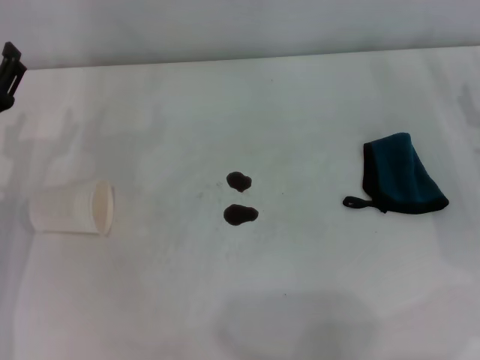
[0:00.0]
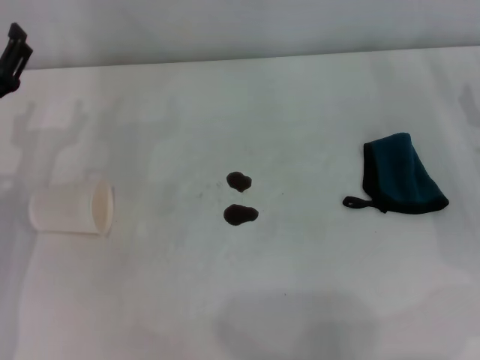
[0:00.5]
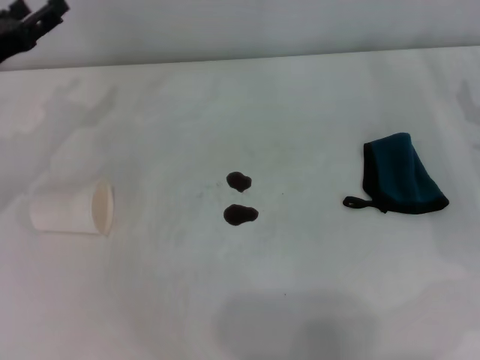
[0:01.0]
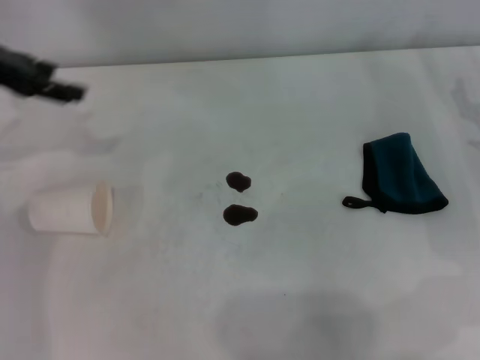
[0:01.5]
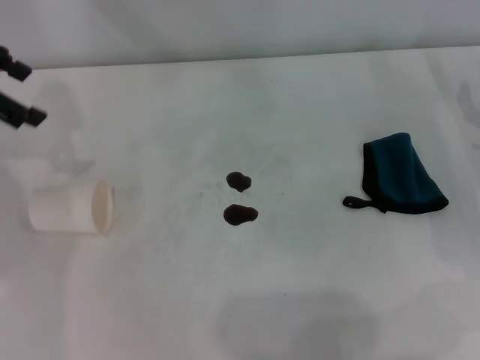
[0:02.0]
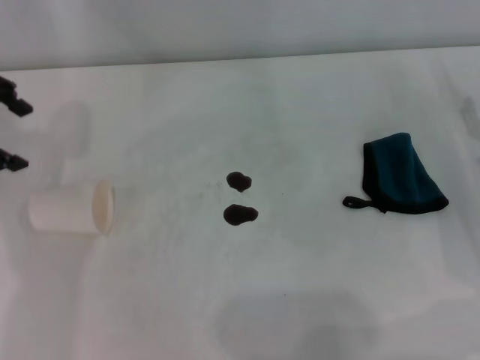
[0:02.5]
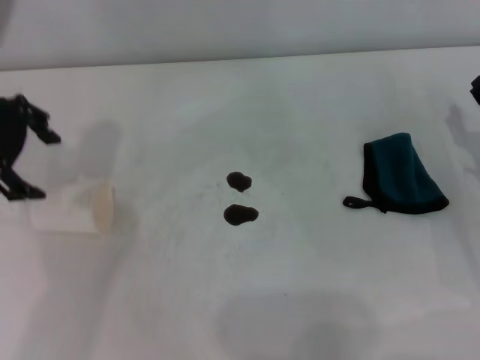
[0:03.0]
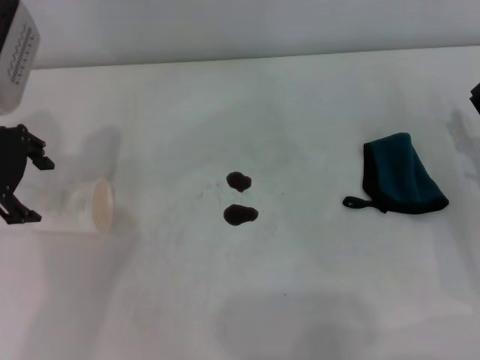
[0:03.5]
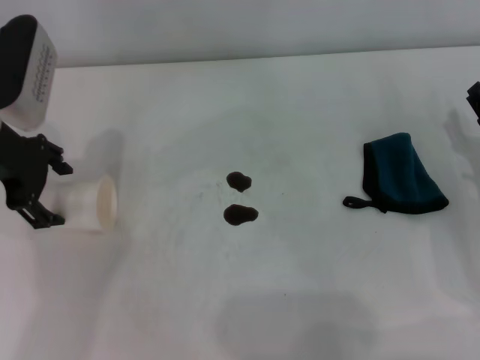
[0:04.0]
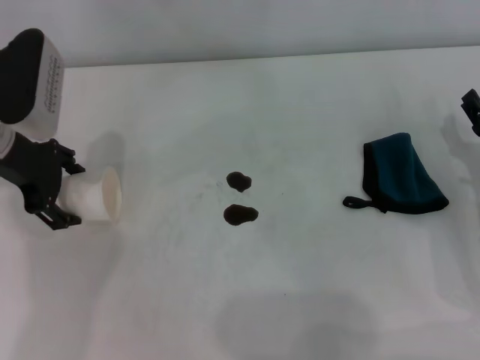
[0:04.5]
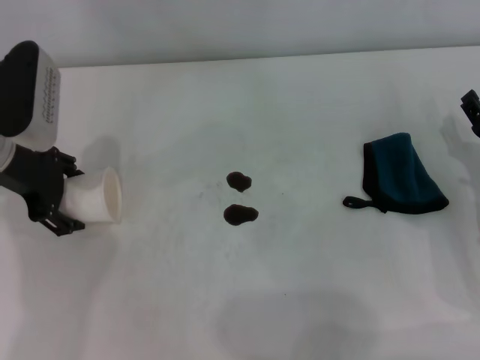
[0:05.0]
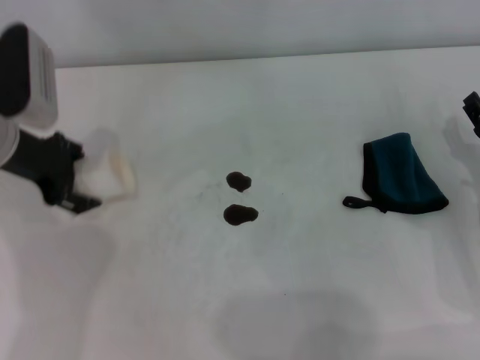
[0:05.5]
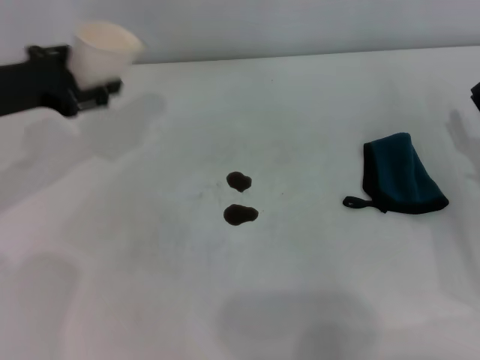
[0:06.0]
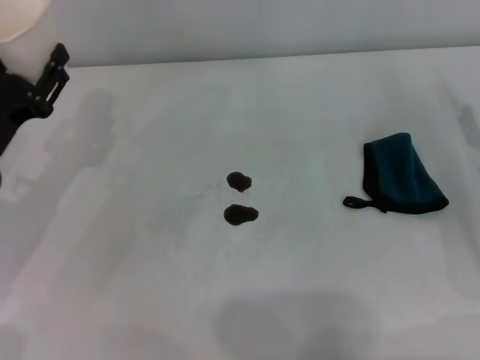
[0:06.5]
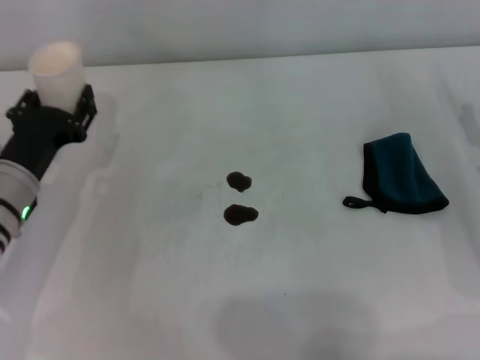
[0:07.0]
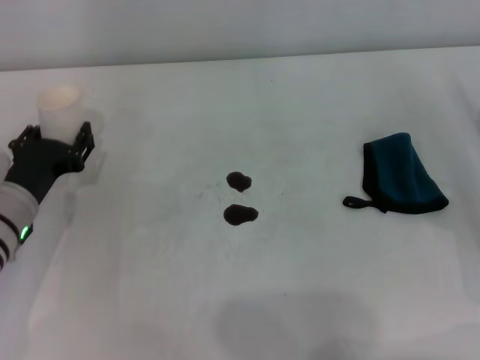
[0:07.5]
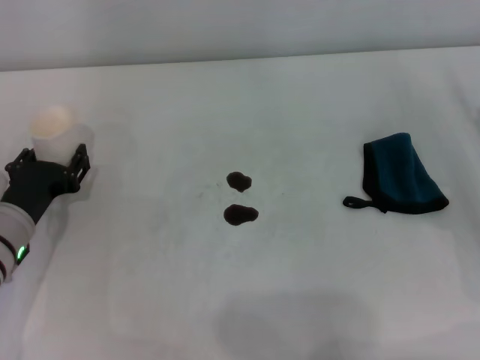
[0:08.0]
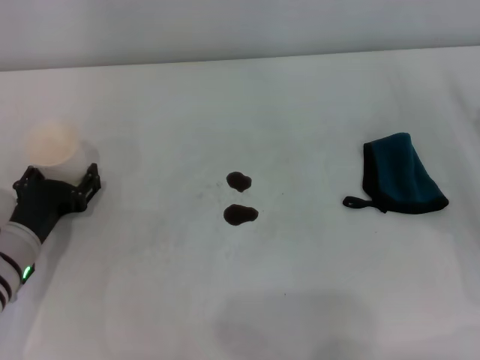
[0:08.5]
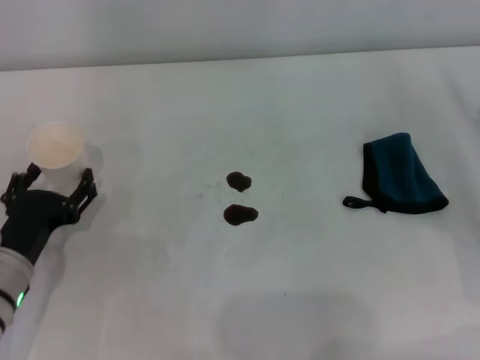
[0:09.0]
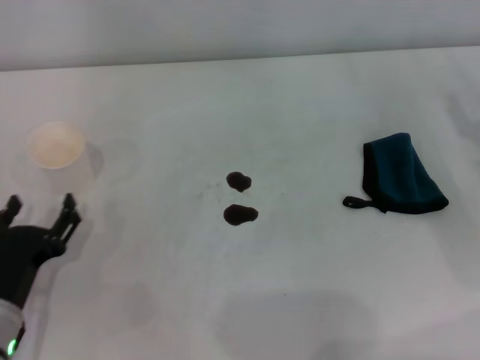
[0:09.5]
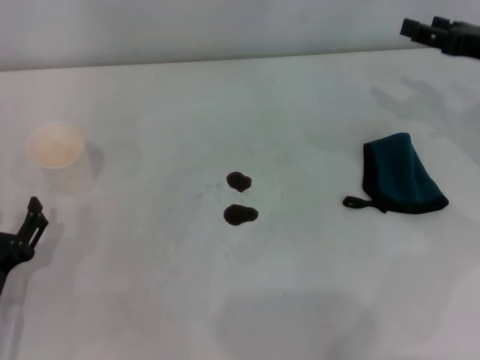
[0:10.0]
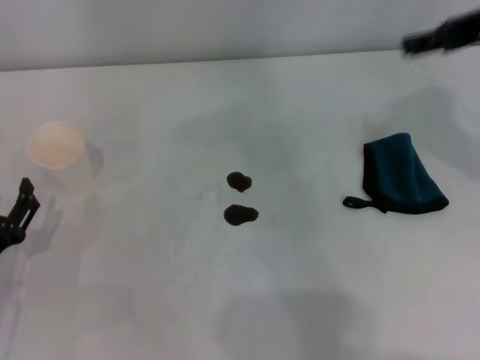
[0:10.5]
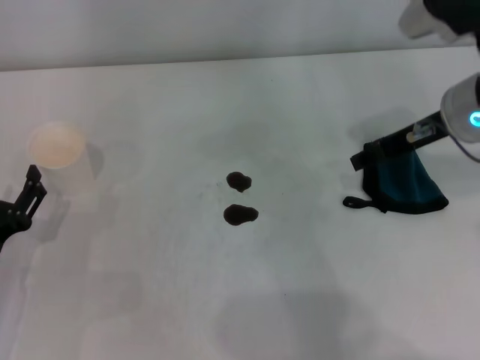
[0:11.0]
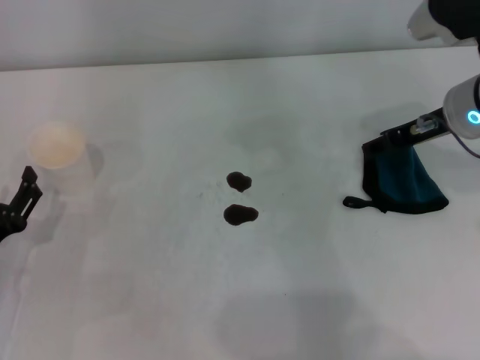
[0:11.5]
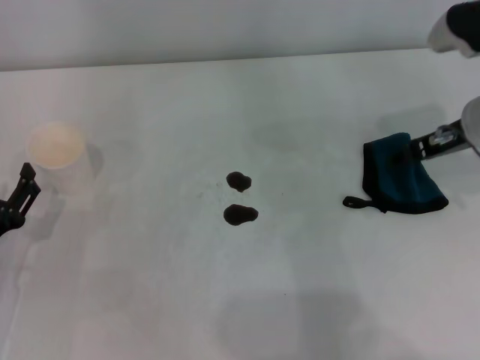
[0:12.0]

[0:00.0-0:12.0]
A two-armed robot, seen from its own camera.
Step, 0:00.0 to 0:05.0: Grasp the paper cup with the left gripper.
Step, 0:05.5 to 0:08.5: Stand the paper cup upright with the left gripper.
0:00.0 to 0:02.0: The left gripper heads upward and forward, covering roughly 25 cm.
0:02.0 to 0:04.0: The left gripper goes roughly 10 cm downward and to the right.
0:04.0 to 0:06.0: The left gripper closes its fingers.
0:06.0 to 0:08.0: The left gripper is displaced downward and backward by about 15 cm.
0:08.0 to 0:10.0: The right gripper travels upward and forward by roughly 15 cm. Meanwhile the left gripper travels backward by some 10 cm, and opens.
0:10.0 to 0:12.0: The right gripper shifts roughly 10 cm to the left, and reaches some 15 cm upward, then returns.

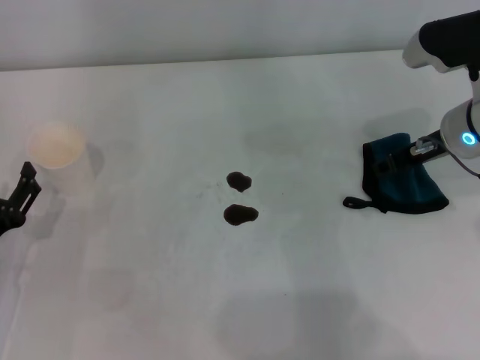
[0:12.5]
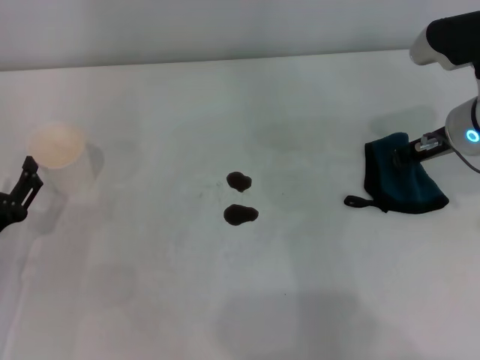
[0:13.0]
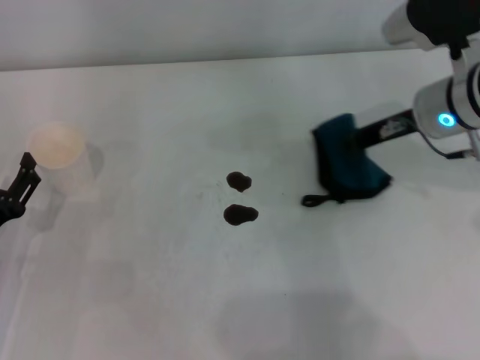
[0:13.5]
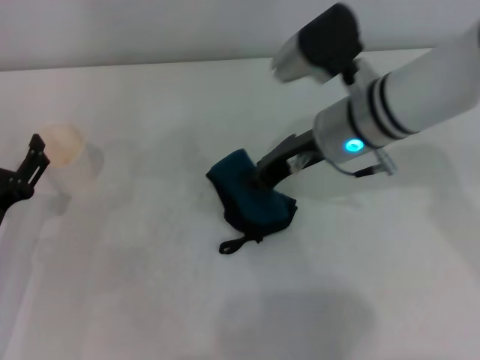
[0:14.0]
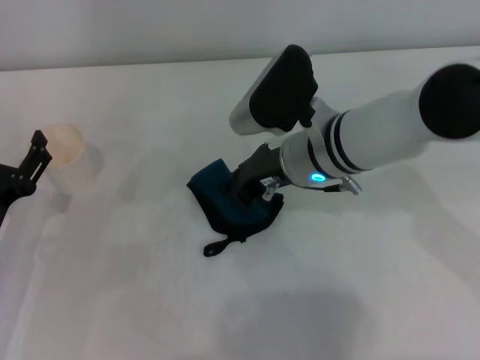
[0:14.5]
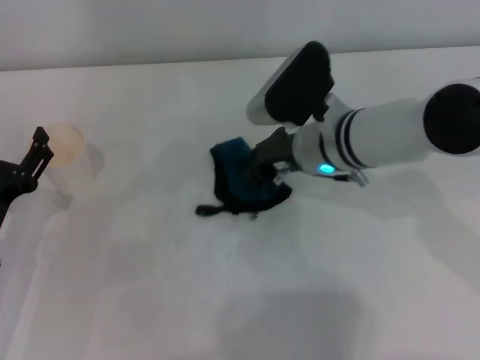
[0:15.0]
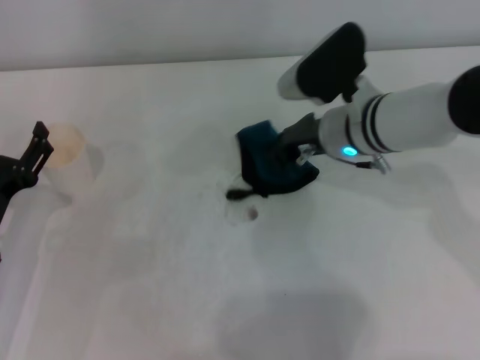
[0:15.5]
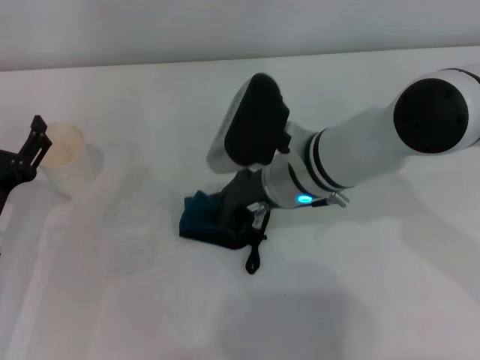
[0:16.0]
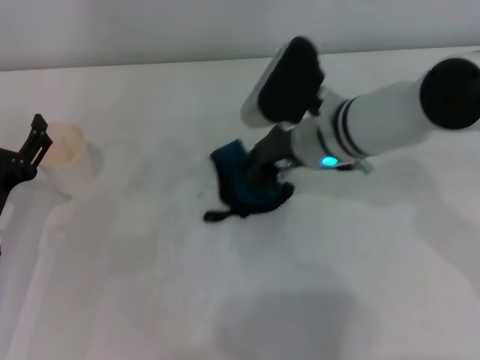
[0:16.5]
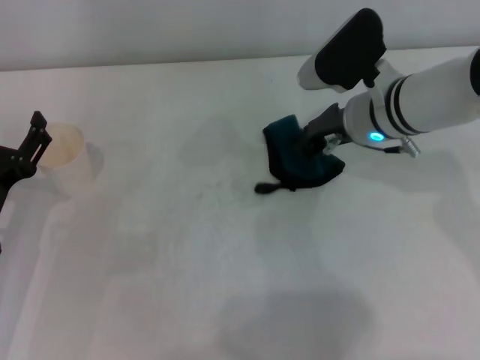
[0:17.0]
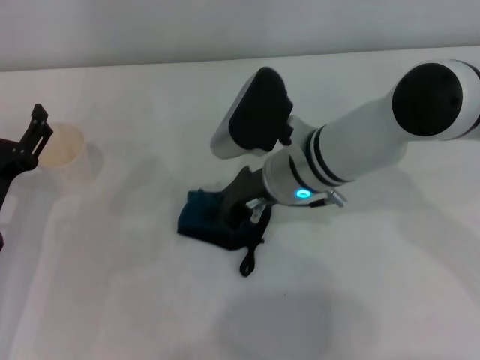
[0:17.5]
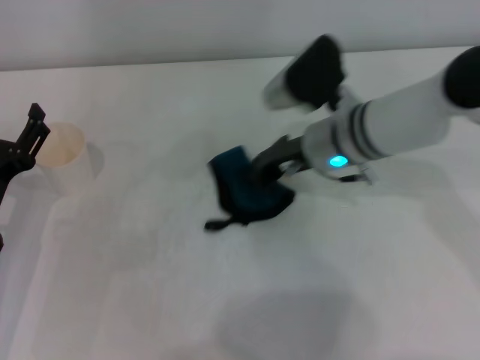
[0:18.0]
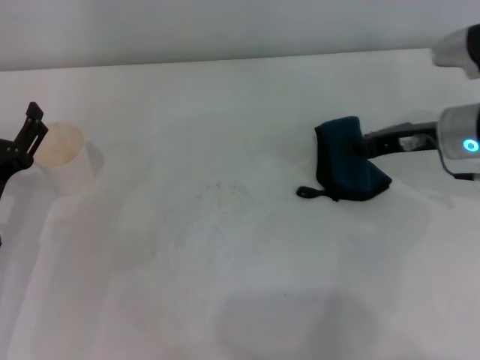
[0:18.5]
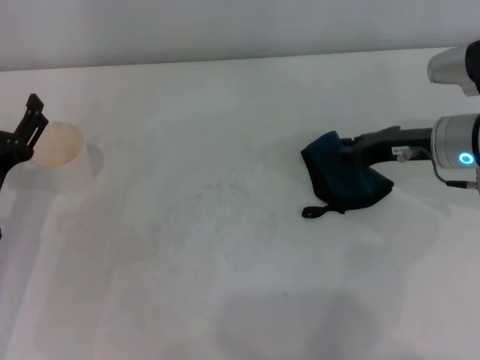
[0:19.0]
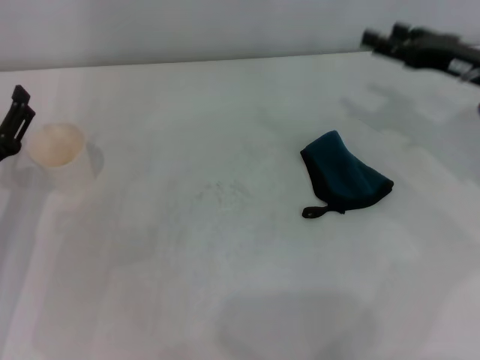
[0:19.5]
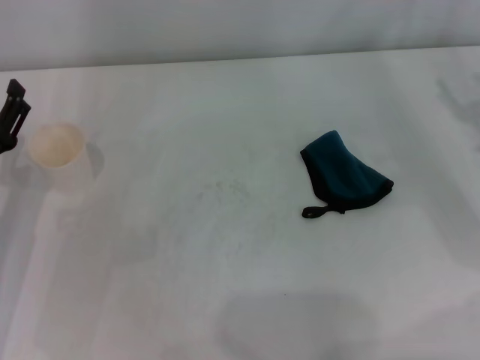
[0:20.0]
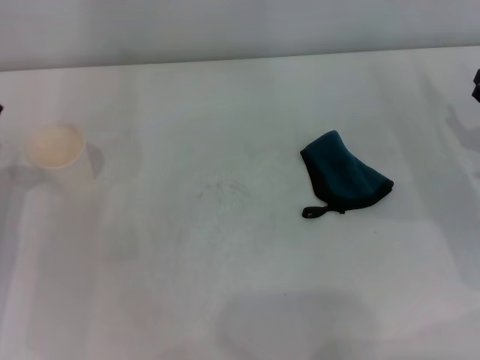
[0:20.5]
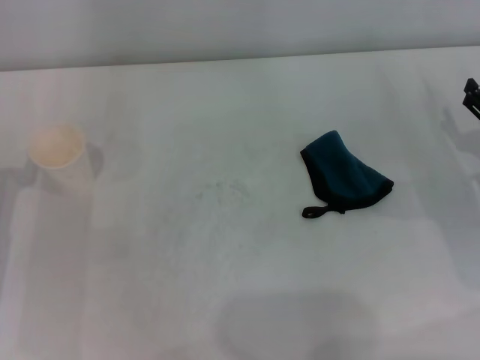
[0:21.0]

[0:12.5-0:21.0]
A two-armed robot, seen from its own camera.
Step, 0:13.5 to 0:18.0: Wipe the stains off the table with the right gripper.
0:12.5 to 0:14.5: The right gripper shifts approximately 15 cm to the left, and closes.
0:16.5 to 0:19.0: The right gripper moves left and right over roughly 20 cm, changing direction 2 times.
0:19.0 to 0:21.0: The right gripper goes some 10 cm to the right, backward and downward, and opens up.

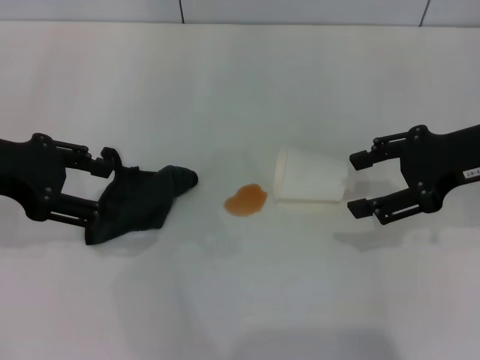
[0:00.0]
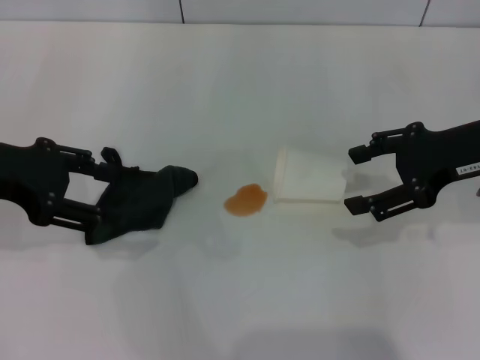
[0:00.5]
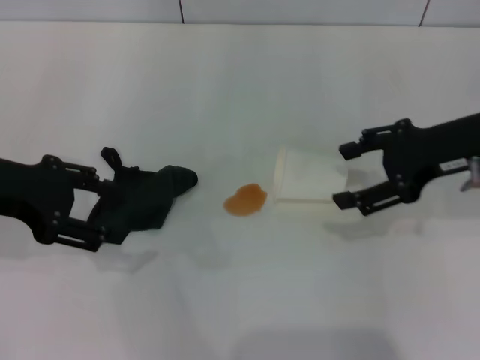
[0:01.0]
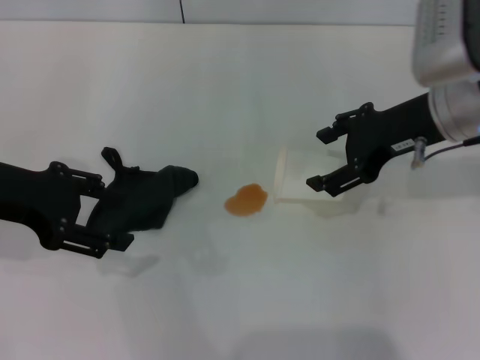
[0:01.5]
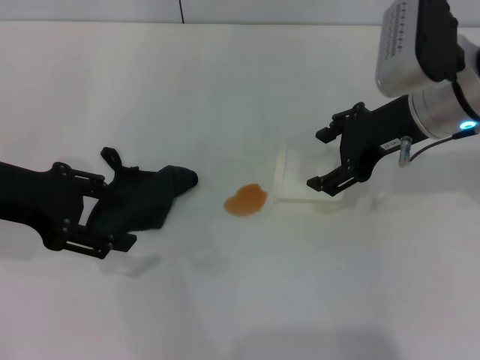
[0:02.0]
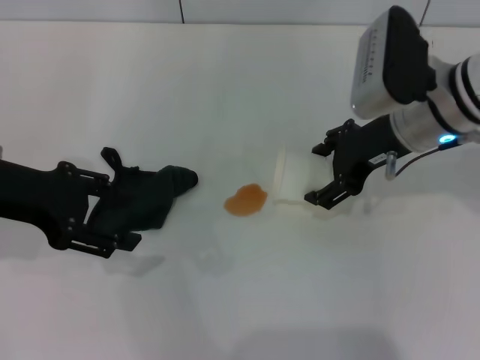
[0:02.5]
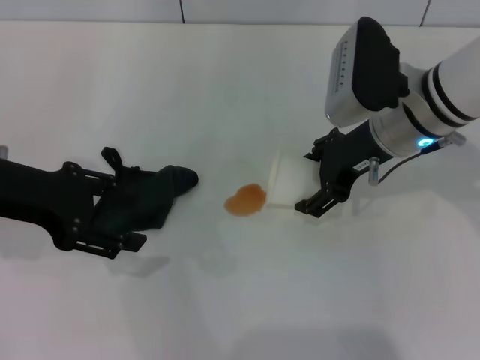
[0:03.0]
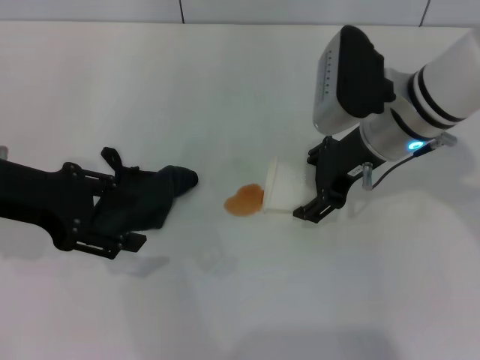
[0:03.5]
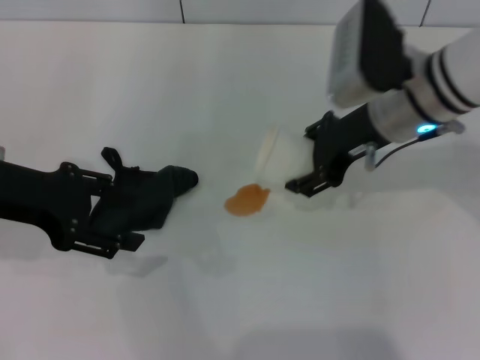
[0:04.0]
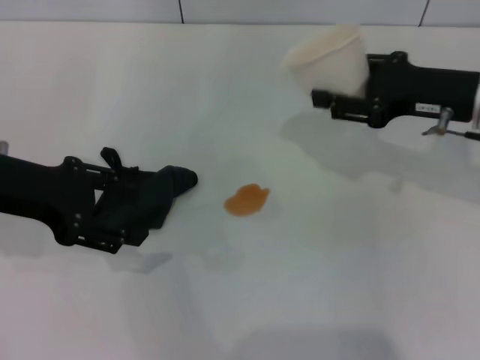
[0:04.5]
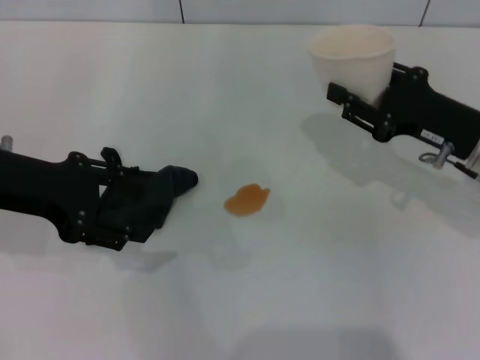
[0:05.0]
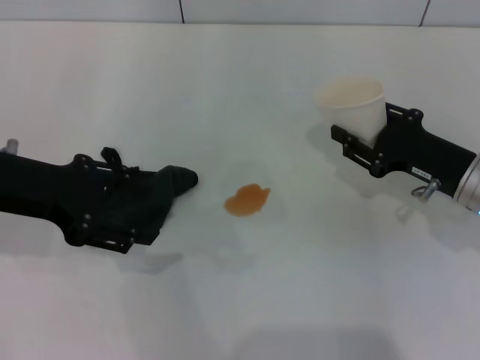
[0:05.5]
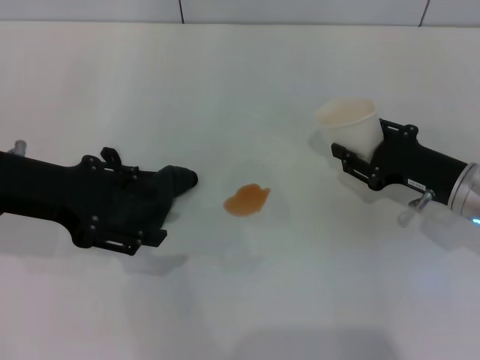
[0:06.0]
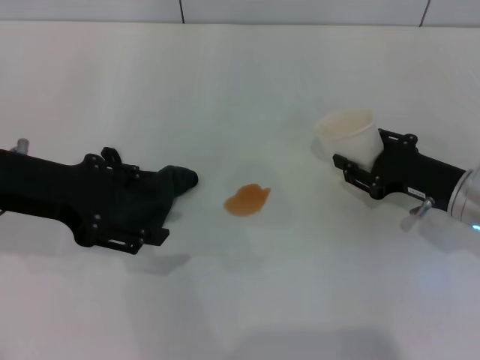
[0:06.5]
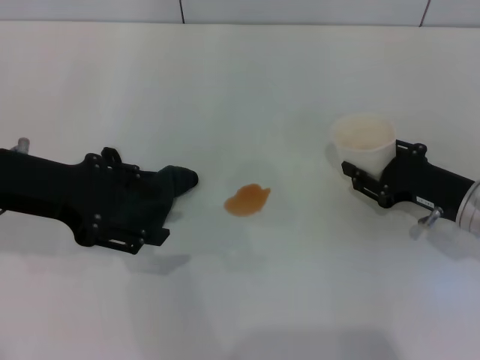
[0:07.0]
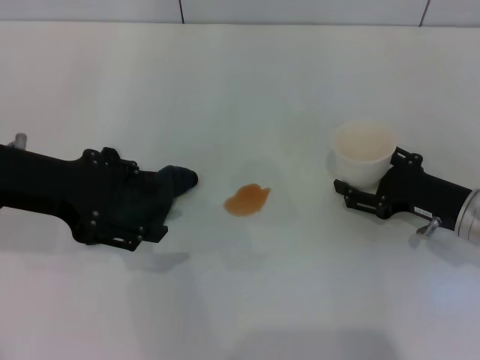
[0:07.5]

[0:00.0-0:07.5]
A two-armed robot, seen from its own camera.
Step, 0:00.0 to 0:03.0: Grasp the paper cup with the right gripper.
0:00.0 to 0:02.0: The right gripper moves to the left, about 10 cm.
0:02.0 to 0:04.0: The right gripper closes its fingers.
0:04.0 to 0:05.5: The right gripper shifts about 15 cm downward, to the right and backward, and closes.
0:05.5 to 0:07.5: The right gripper opens.
